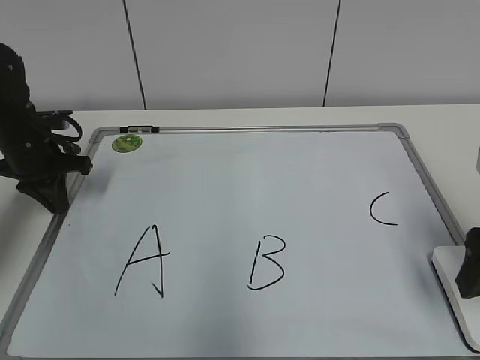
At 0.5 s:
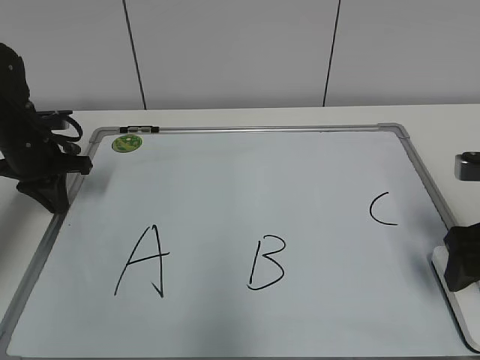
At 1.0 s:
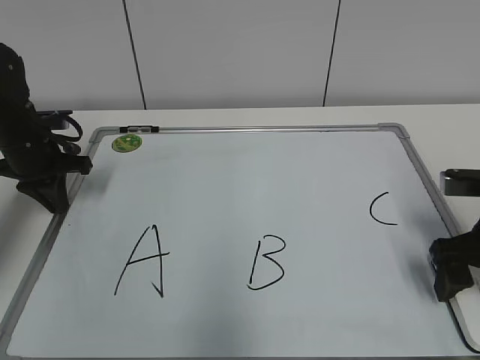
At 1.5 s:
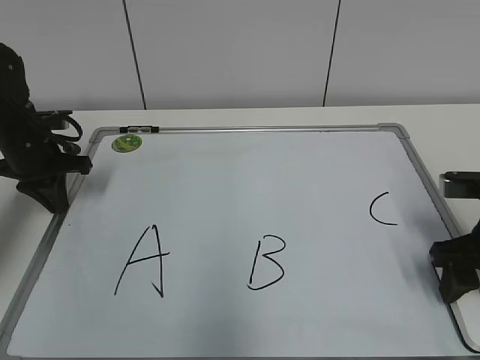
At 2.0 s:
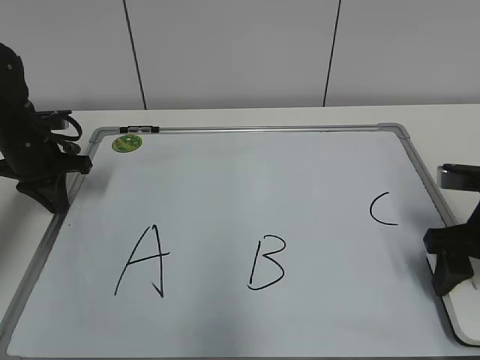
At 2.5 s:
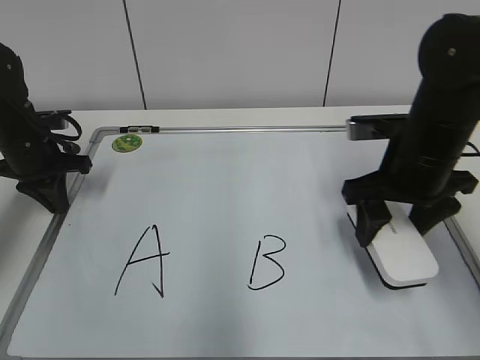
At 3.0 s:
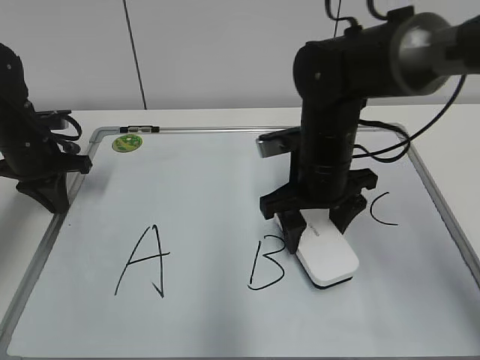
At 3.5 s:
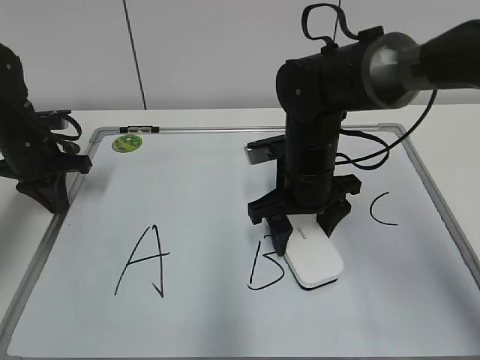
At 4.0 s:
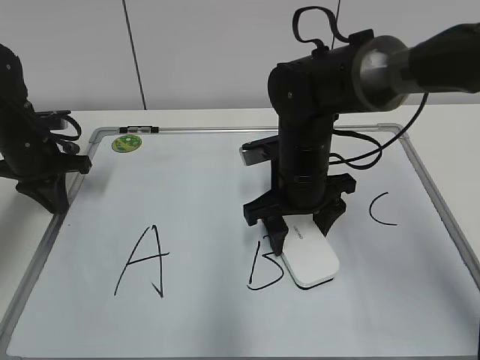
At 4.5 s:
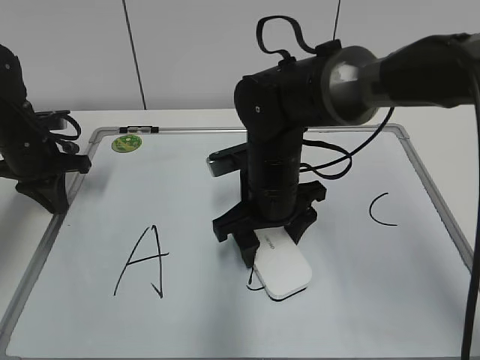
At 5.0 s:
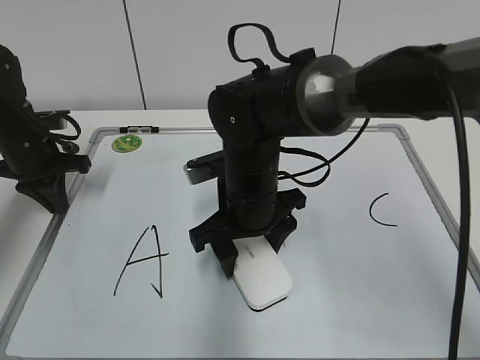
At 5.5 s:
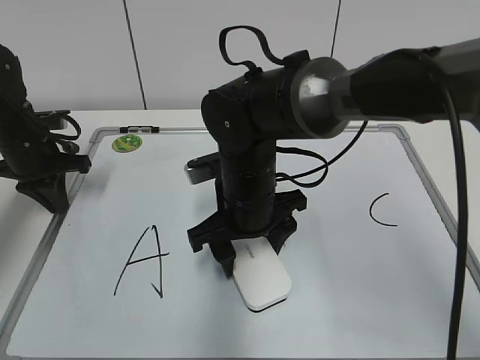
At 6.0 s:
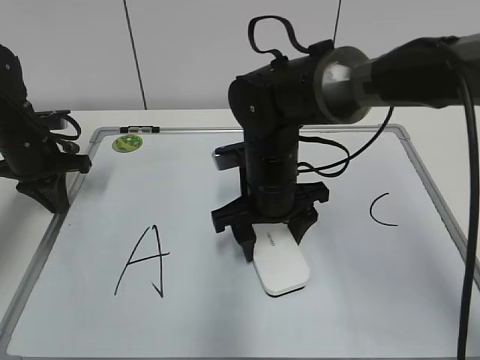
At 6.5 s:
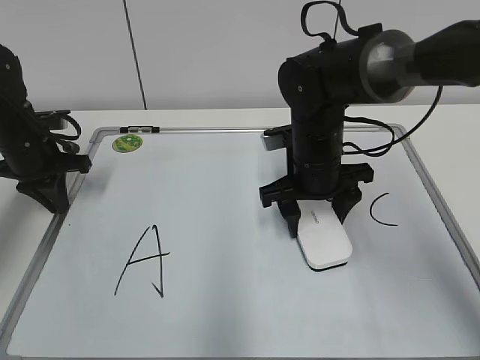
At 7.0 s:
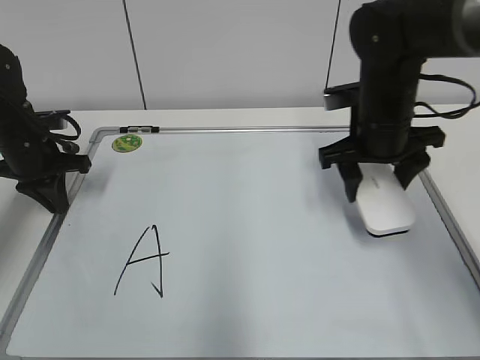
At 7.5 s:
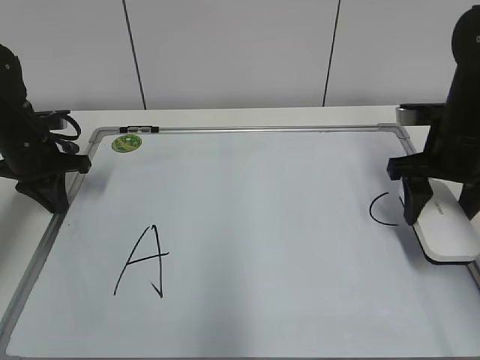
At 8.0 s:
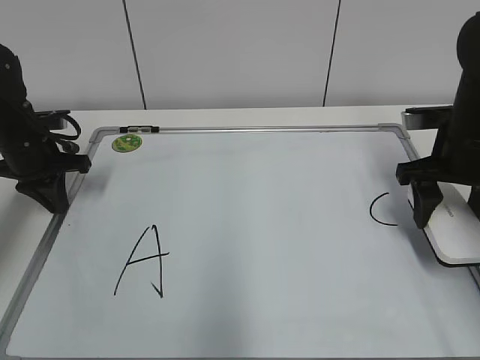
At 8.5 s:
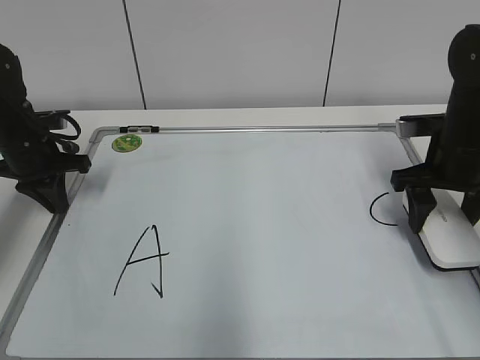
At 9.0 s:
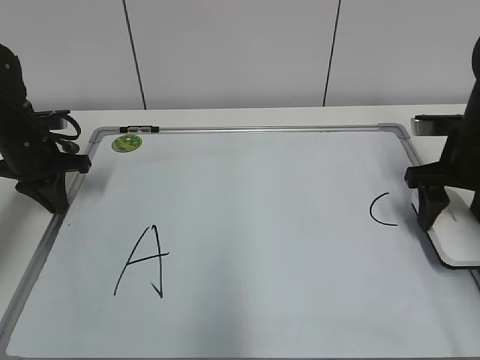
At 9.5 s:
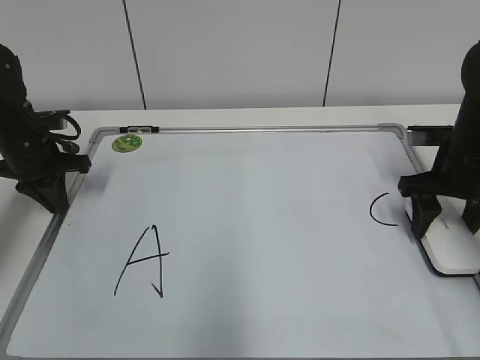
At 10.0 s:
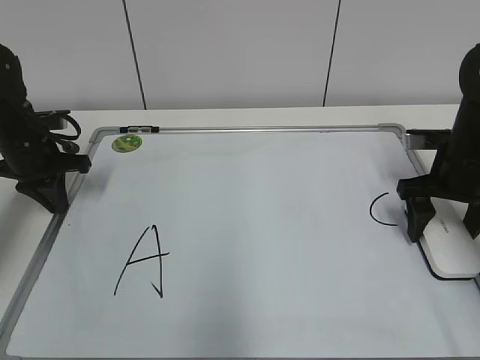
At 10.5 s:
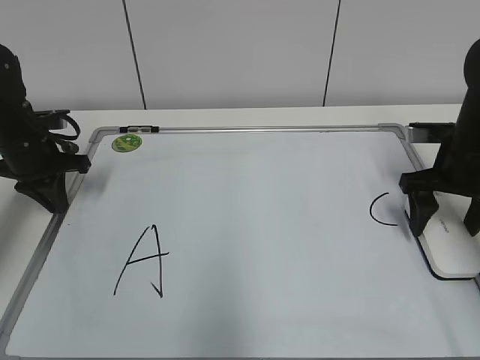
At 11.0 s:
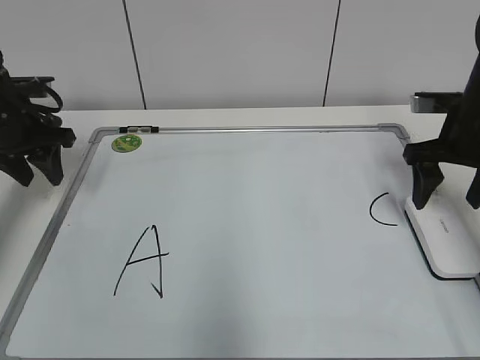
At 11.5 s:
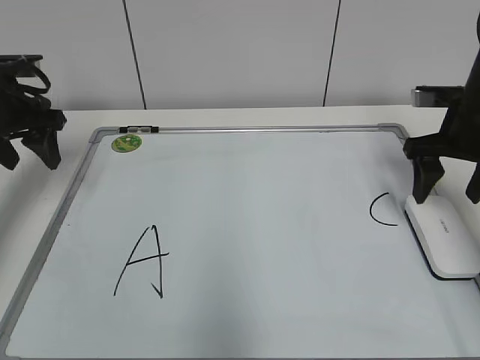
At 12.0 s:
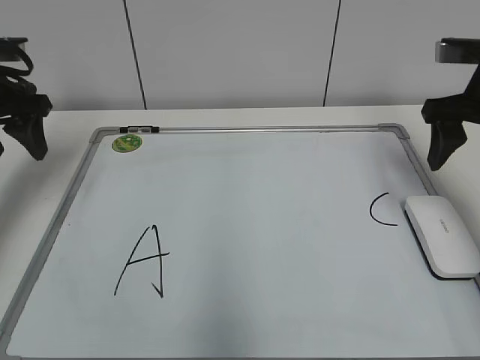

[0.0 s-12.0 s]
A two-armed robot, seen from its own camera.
Task of the whole recording: pick up the eraser on the blackboard and erase the letter "B".
Step, 1.5 to 6.5 s: Erase the letter B with your right hand.
Step, 7.0 to 10.0 s: Put down the eraser with your right hand.
0.0 to 2.0 s: The right gripper is displaced downward and forward by approximately 10 cm, and closes its fingers.
2.0 to 4.0 s: The right gripper heads to the left and forward, covering roughly 20 cm.
6.0 to 8.0 s: The right gripper shifts roughly 20 cm to the right.
8.0 to 10.0 s: The right gripper opens.
10.0 to 12.0 s: Both grippers move upward, some 10 cm. The left gripper opens.

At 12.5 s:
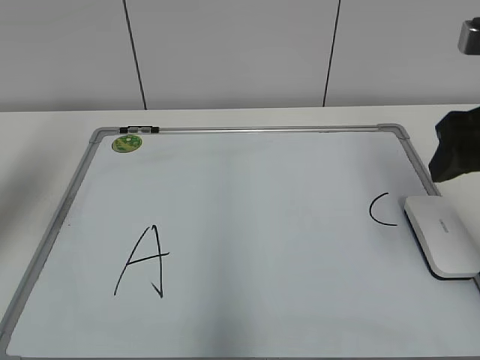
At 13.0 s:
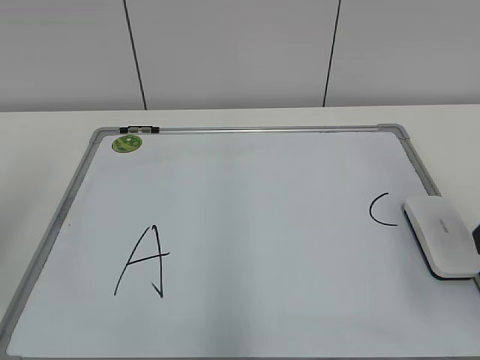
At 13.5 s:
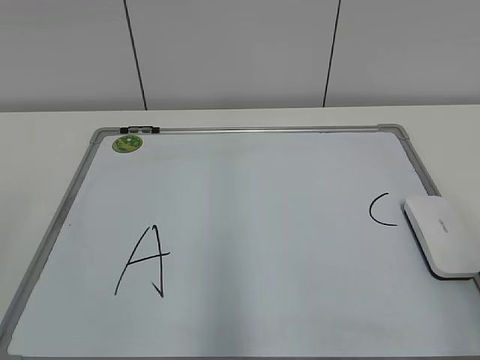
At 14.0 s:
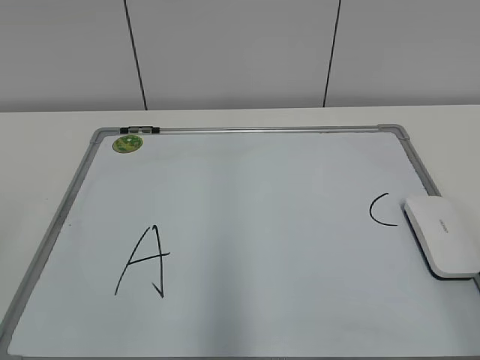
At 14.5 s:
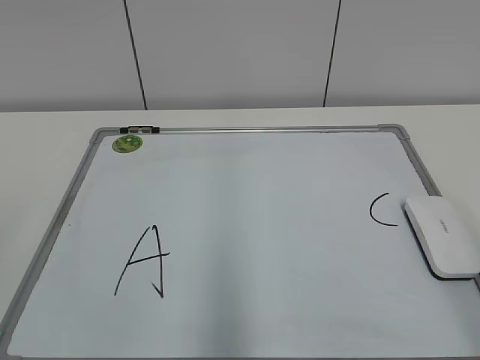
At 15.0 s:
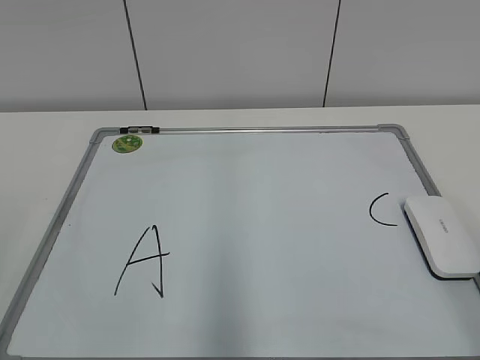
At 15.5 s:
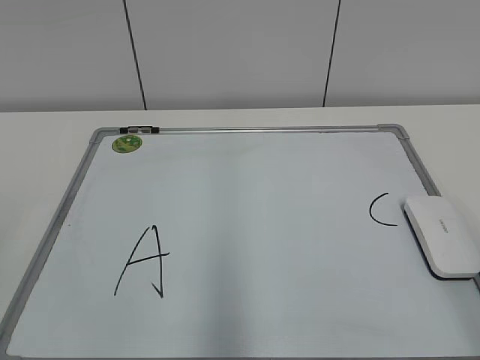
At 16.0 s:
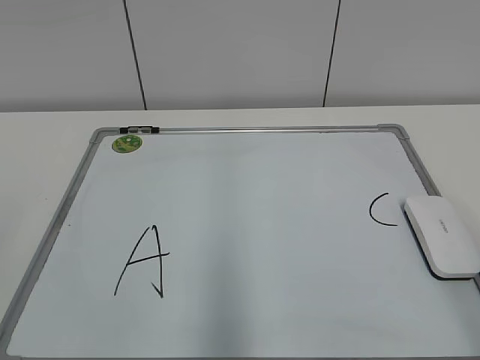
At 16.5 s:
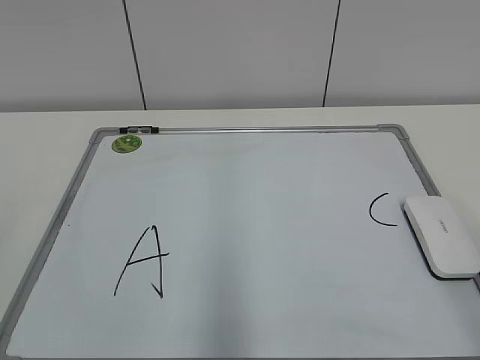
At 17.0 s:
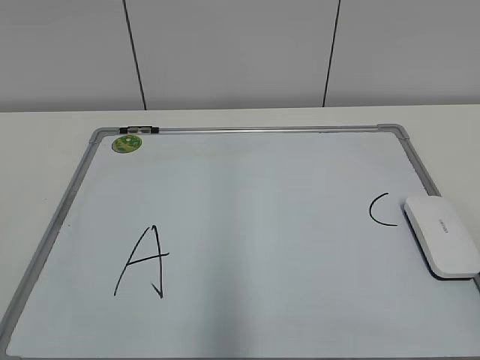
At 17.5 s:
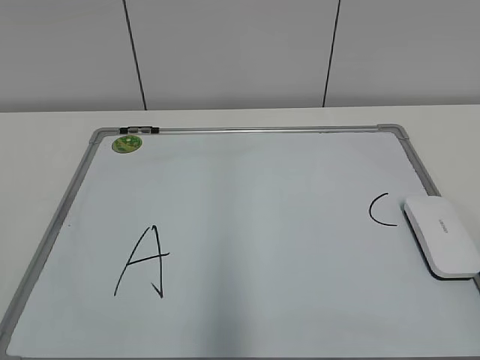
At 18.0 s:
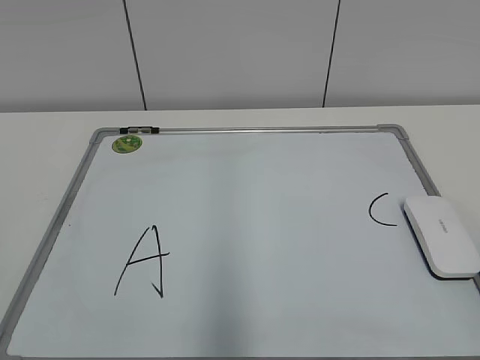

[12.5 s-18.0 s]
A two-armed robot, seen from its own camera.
Task of the whole recording: pick up the eraser on the blackboard and erase the letter "B".
12.5 to 14.5 s: The grippers both shift backward by roughly 20 cm.
14.5 to 16.0 s: The two grippers keep their place.
